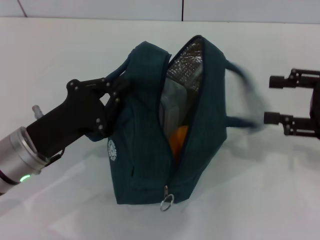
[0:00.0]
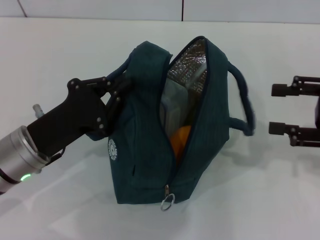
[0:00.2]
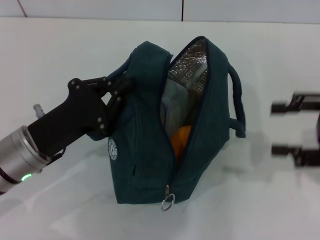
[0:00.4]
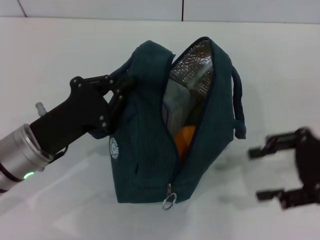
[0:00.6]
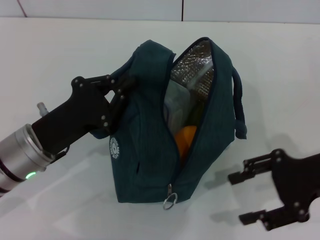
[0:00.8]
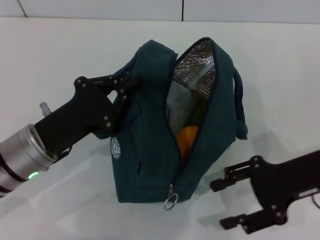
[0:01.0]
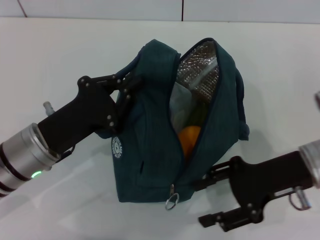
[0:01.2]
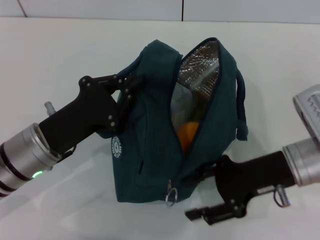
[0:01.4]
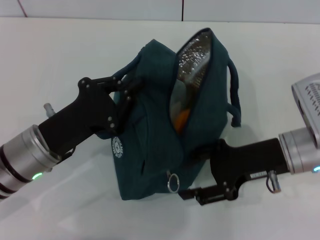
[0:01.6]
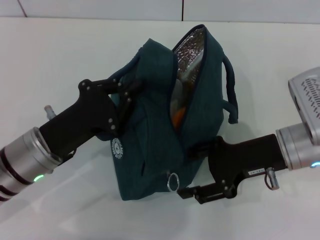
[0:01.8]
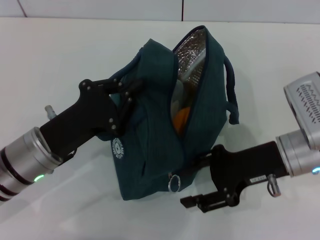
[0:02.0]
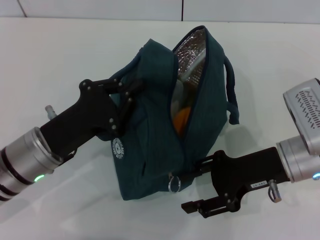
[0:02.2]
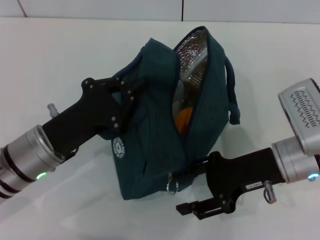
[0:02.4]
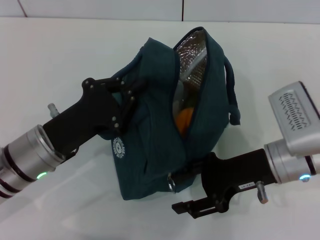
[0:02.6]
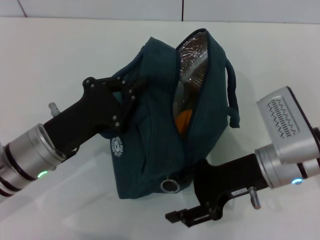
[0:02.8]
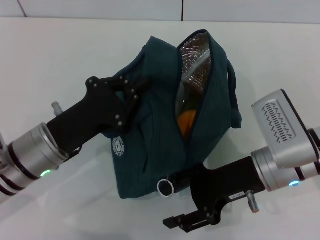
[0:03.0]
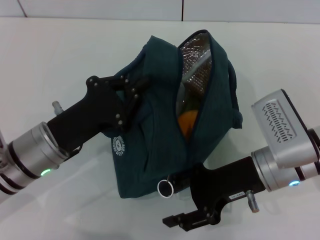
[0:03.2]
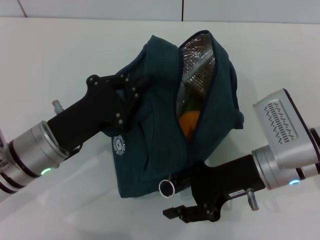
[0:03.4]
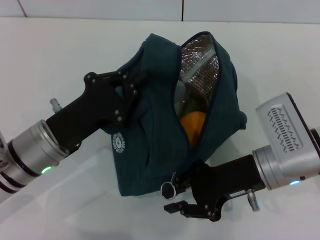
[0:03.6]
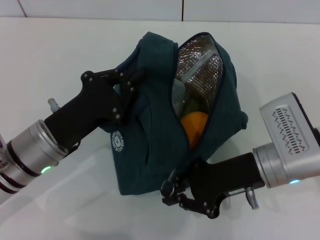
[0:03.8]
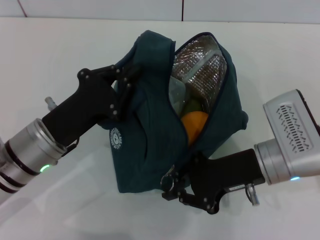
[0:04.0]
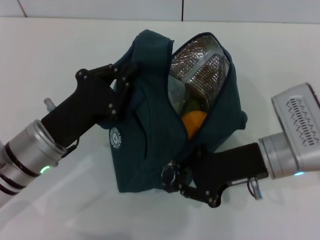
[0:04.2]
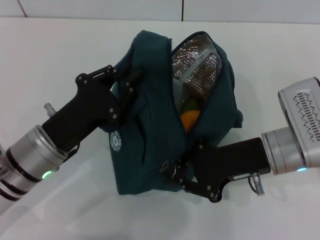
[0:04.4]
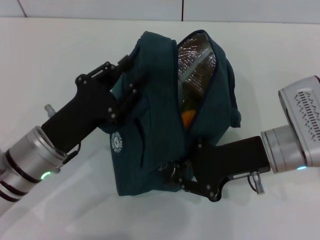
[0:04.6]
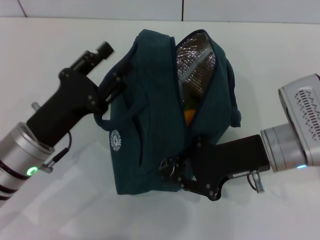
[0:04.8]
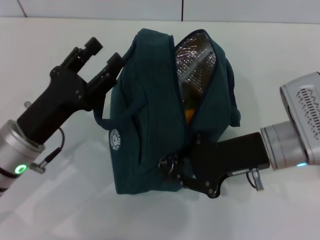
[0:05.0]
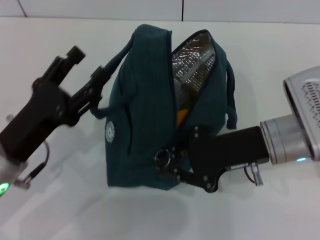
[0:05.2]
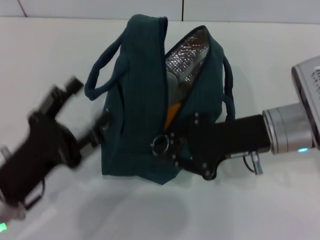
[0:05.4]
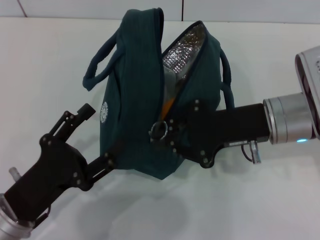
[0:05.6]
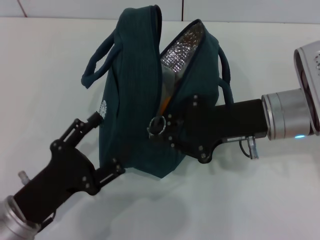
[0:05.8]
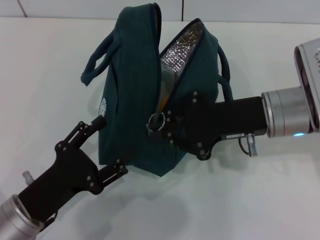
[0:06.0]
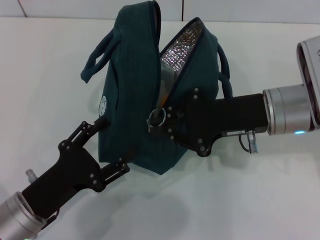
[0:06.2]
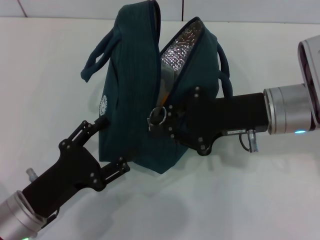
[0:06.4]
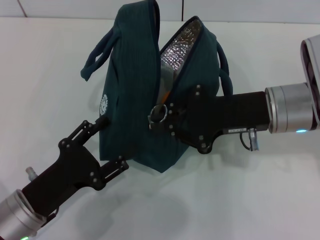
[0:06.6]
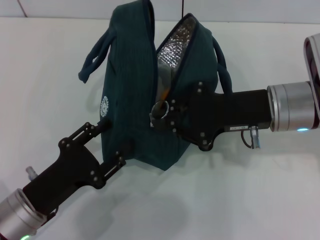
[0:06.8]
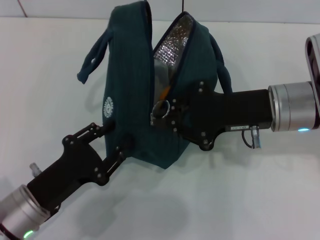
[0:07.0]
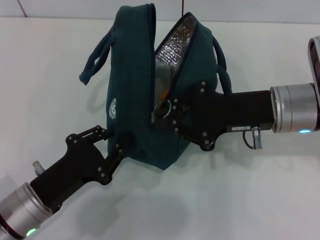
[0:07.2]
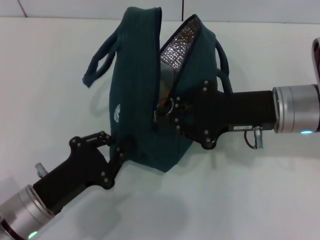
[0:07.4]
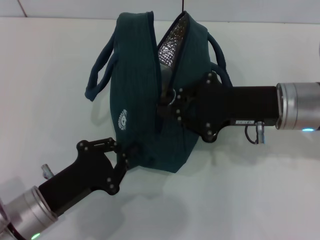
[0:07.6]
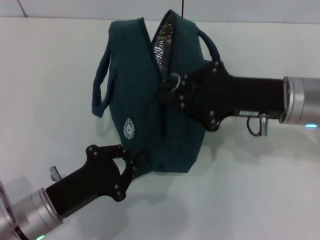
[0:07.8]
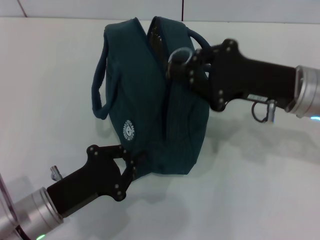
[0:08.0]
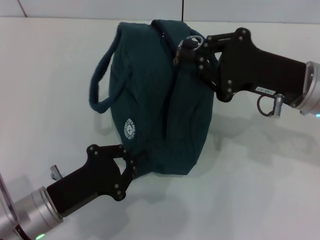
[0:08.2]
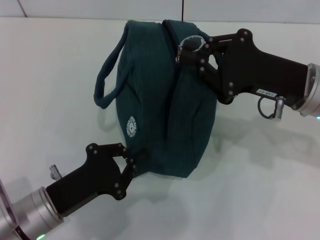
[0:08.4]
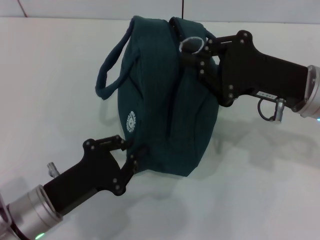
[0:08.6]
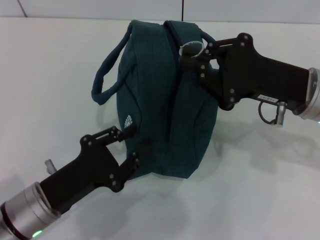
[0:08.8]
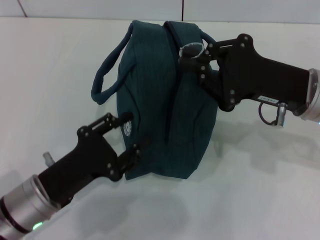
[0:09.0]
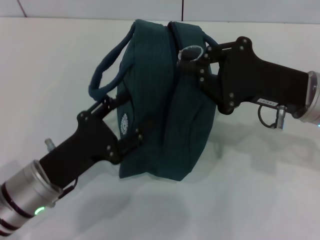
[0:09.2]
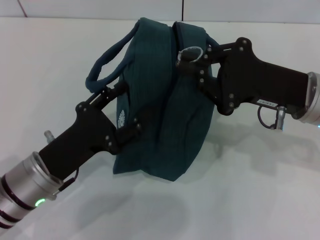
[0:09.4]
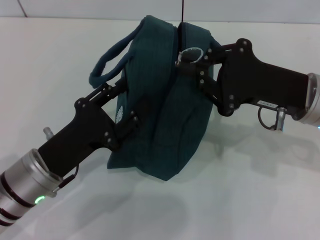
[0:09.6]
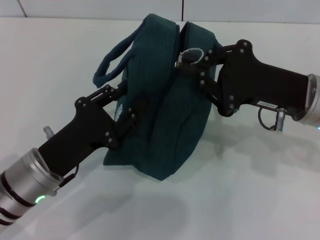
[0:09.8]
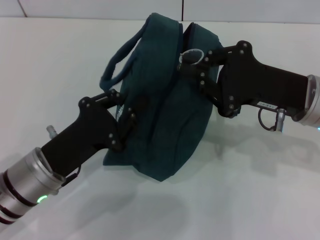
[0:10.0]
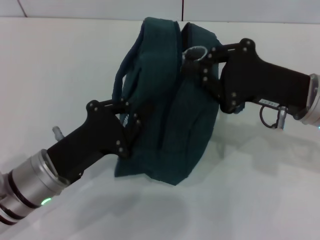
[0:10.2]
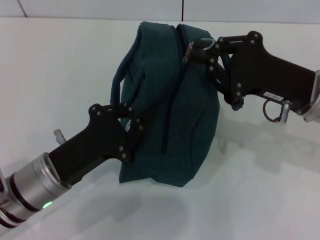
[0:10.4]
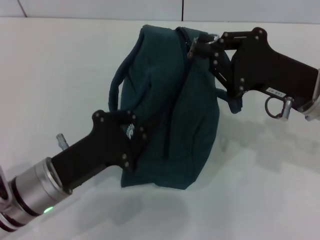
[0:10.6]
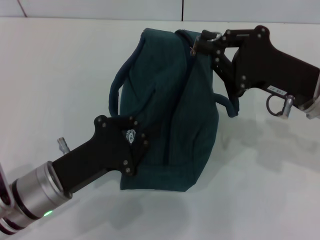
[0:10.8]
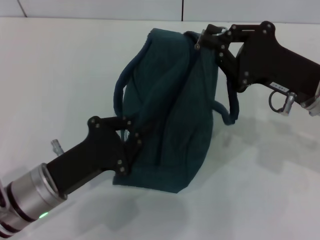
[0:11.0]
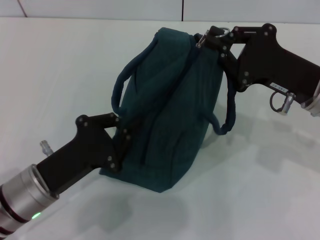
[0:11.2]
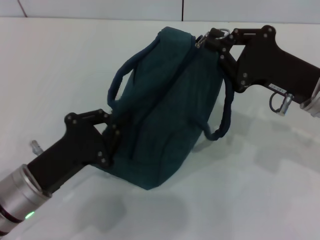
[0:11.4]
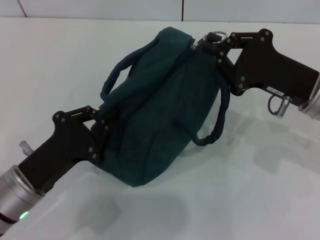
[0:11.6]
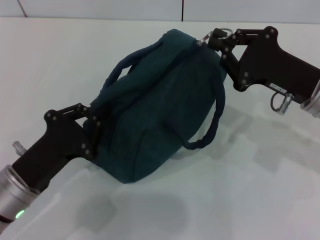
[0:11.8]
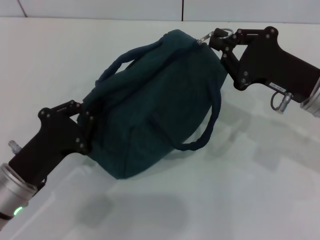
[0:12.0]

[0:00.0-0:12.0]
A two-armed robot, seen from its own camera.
Step, 0:00.0 to 0:04.6: Hold the lunch bag with your left hand.
0:00.0 to 0:01.6: The right gripper goes some 15 cm to the left and downward.
0:01.6 to 0:03.0: The grippers stay close to where they were, moving slightly.
0:03.0 to 0:04.4: The right gripper closes its fingers.
0:04.4 to 0:06.0: The left gripper is displaced backward by some 10 cm, and opens.
0:06.0 to 0:07.6: The left gripper closes.
0:09.0 to 0:10.4: The left gripper opens and closes again.

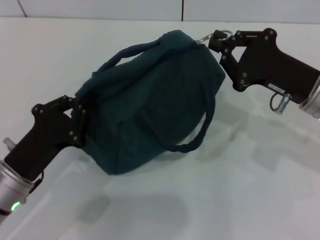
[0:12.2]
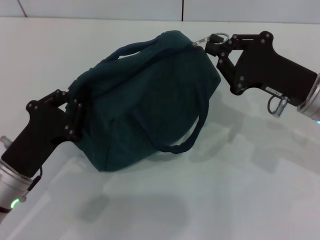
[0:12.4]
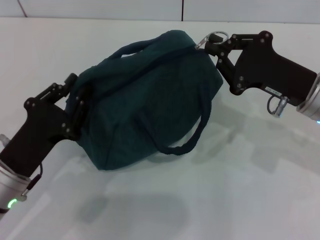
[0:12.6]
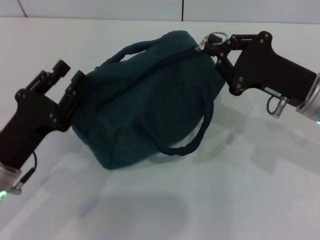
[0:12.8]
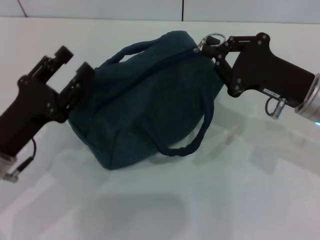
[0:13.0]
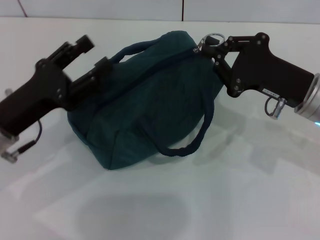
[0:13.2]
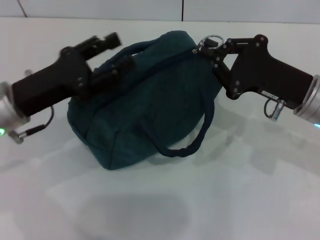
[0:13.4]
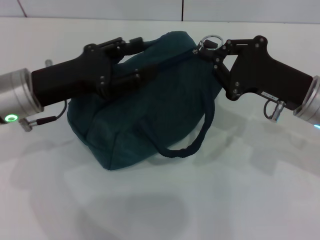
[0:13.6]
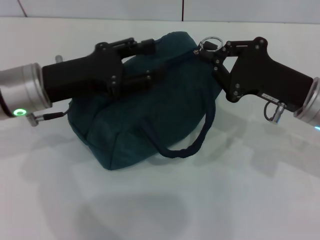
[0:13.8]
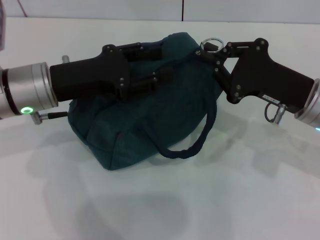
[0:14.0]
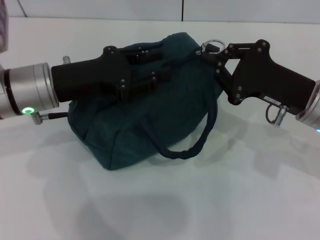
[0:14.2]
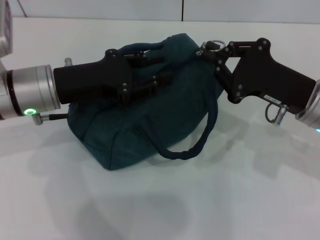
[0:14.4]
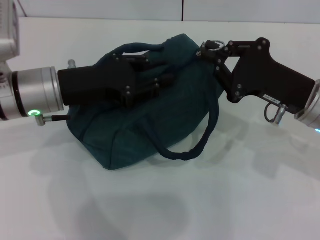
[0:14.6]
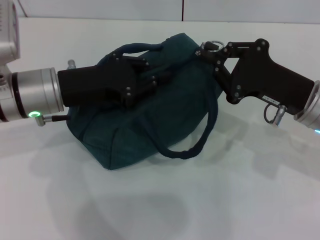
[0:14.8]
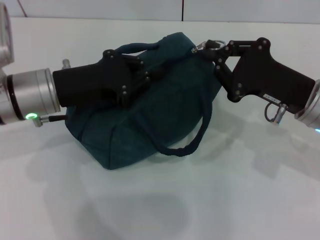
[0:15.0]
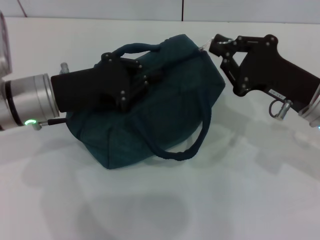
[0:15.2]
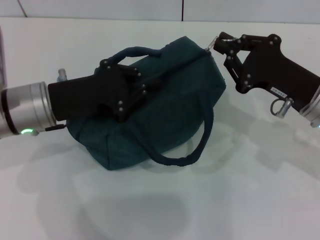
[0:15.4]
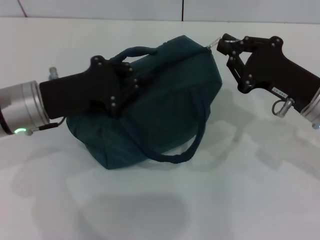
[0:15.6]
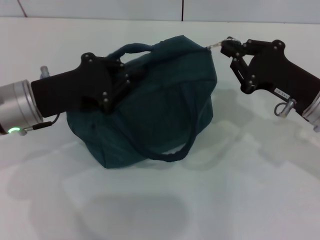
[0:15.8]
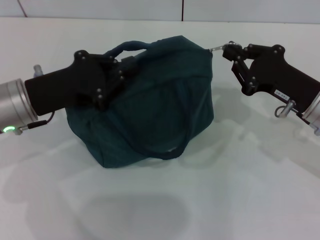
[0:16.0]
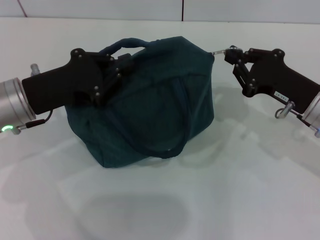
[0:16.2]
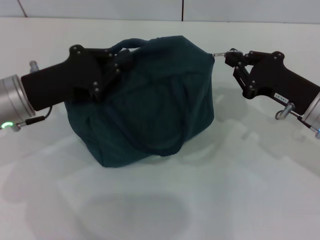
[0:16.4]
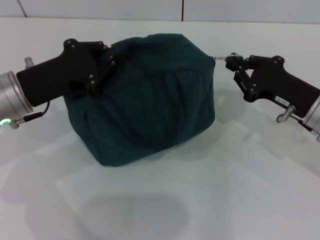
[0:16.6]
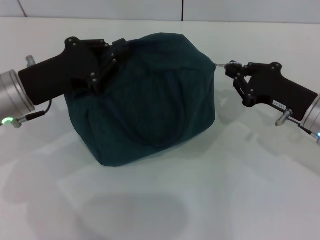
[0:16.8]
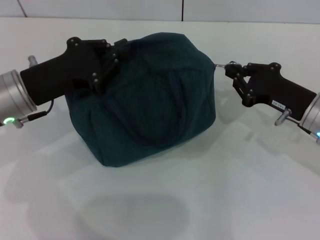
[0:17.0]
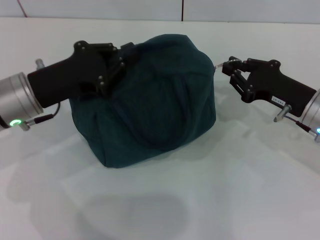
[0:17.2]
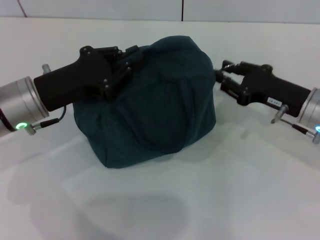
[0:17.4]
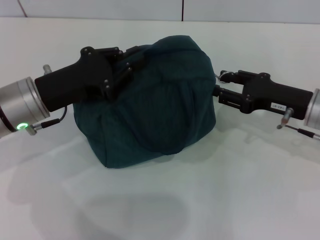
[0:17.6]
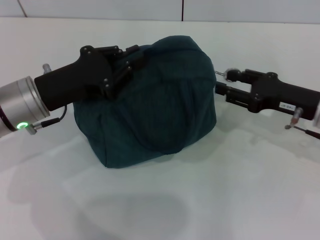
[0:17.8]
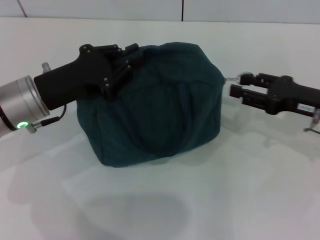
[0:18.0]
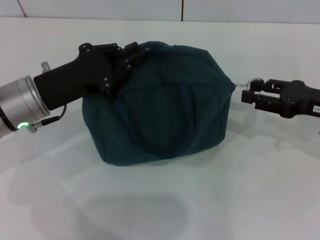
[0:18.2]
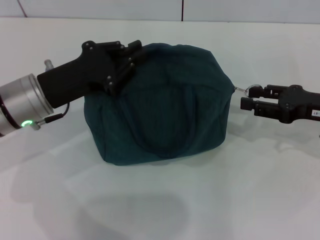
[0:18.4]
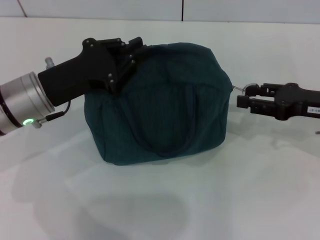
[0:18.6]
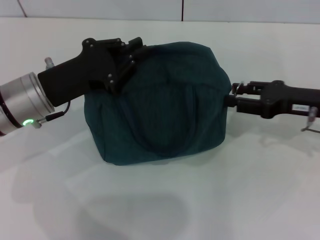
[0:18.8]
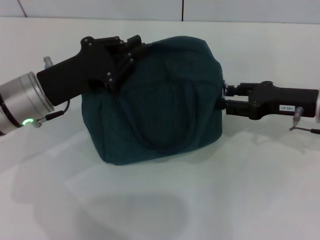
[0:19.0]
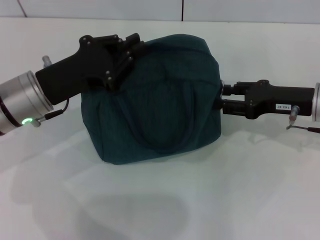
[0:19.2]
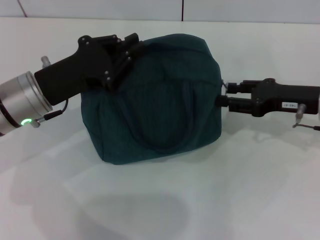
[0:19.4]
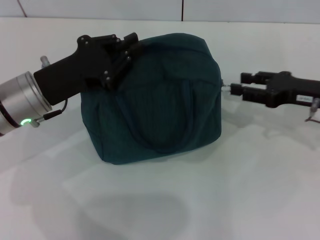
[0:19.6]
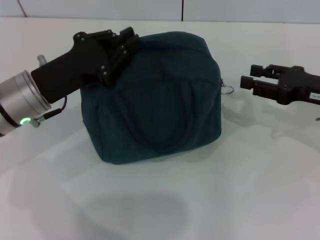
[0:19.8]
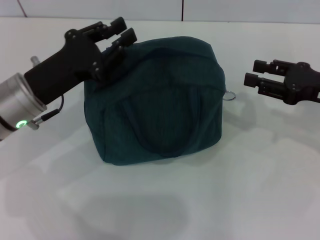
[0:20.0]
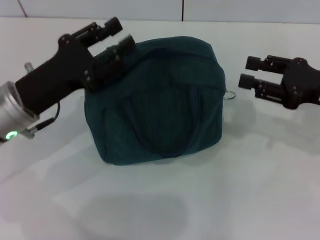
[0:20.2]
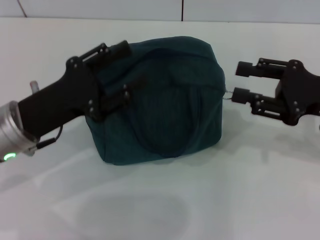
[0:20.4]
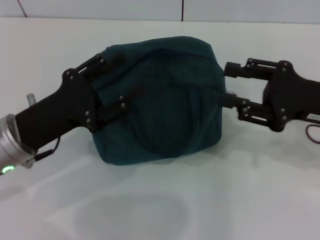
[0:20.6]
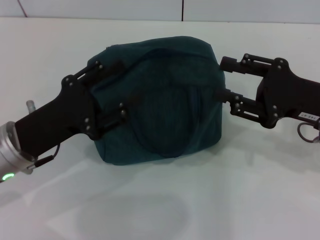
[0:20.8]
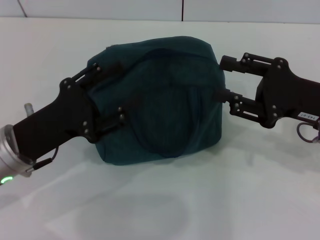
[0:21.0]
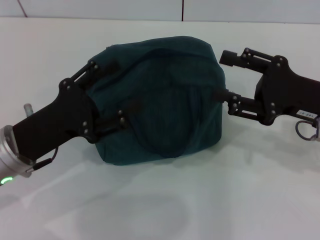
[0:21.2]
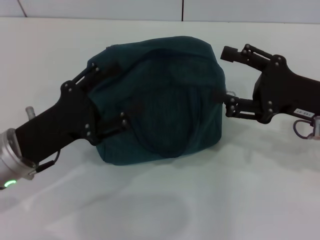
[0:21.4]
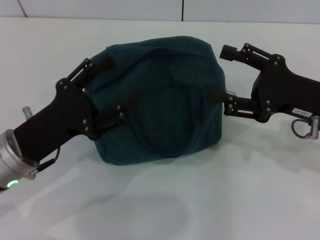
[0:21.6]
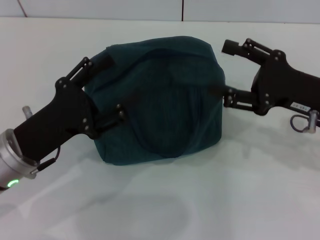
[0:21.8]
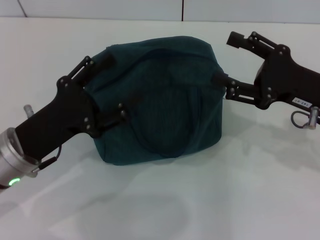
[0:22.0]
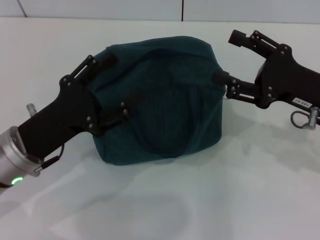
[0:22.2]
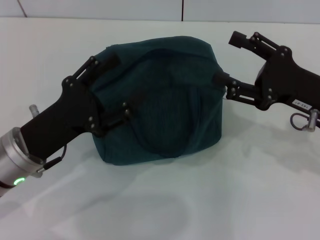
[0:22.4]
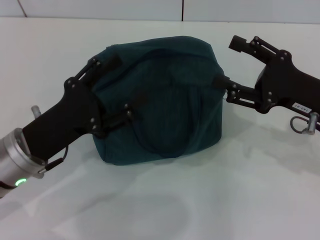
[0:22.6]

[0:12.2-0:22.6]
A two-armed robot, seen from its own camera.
Step, 0:12.2 to 0:19.6: Zip up the lunch bag with your right hand.
0:12.2 to 0:13.6: The left gripper is displaced forward and upward by some 15 cm, and opens.
0:13.6 to 0:15.2: The left gripper closes its fingers.
0:15.2 to 0:16.6: The grippers stay close to where they were, moving slightly.
0:16.6 to 0:18.2: The right gripper is displaced to the right by approximately 5 cm, and opens.
0:18.2 to 0:19.6: There are only small adjustments of the grippers.
0:19.6 to 0:21.2: Both grippers move backward, roughly 5 cm. The left gripper opens.
0:21.2 to 0:22.6: The right gripper opens its fingers.
